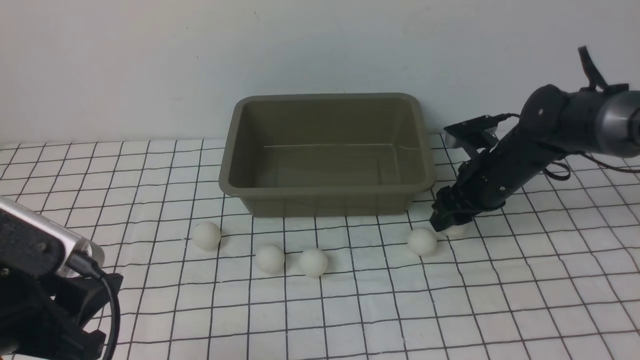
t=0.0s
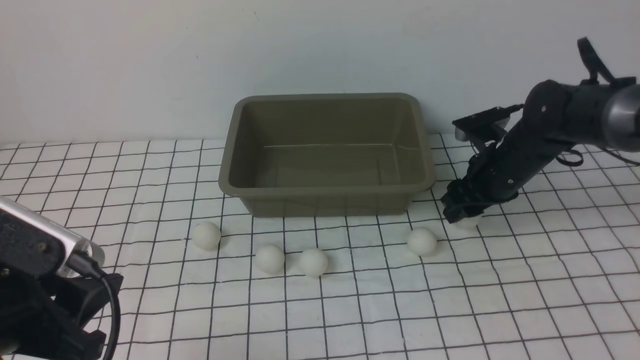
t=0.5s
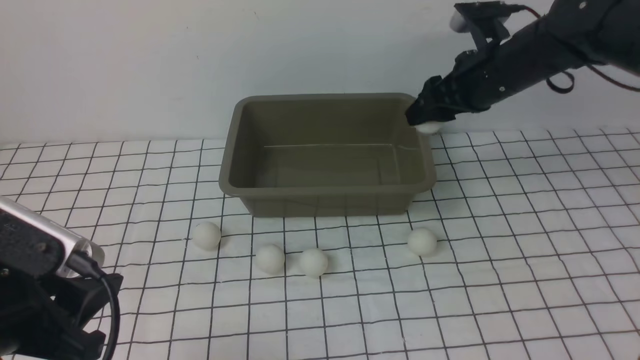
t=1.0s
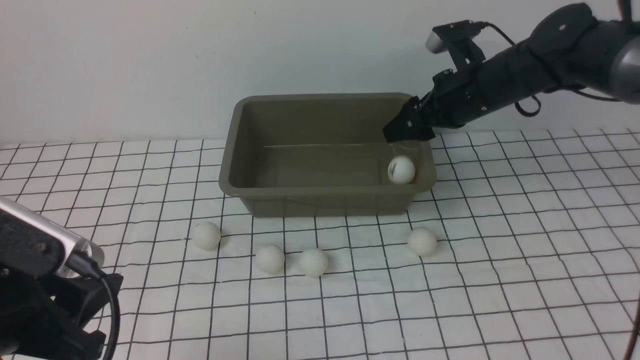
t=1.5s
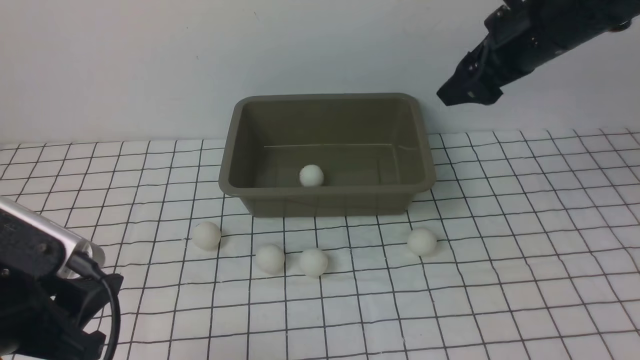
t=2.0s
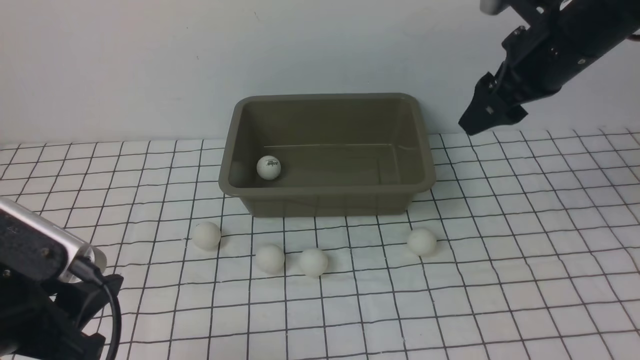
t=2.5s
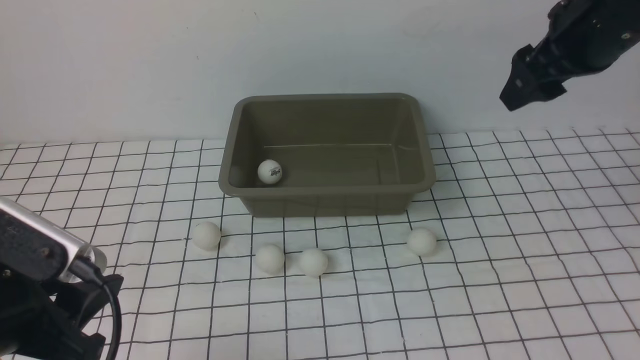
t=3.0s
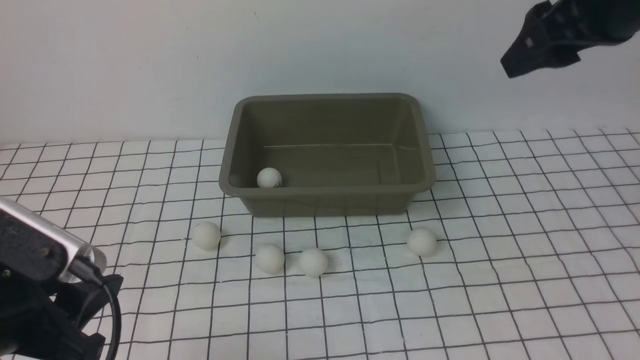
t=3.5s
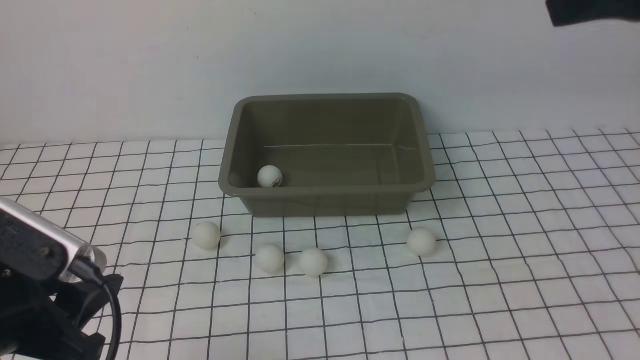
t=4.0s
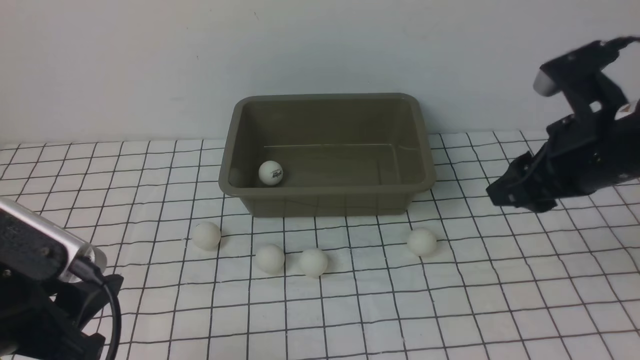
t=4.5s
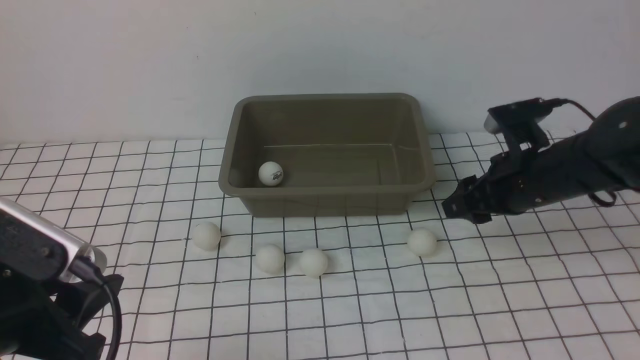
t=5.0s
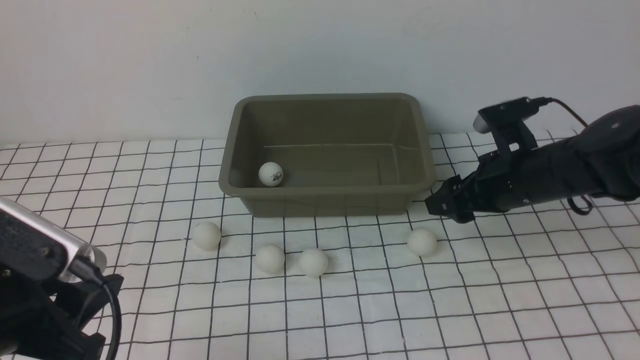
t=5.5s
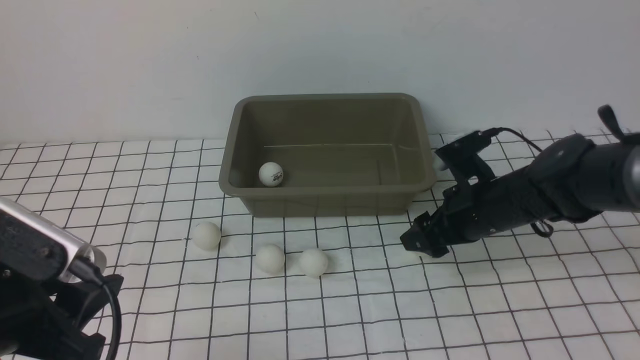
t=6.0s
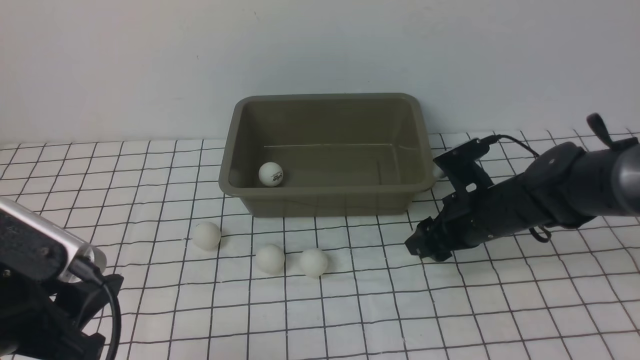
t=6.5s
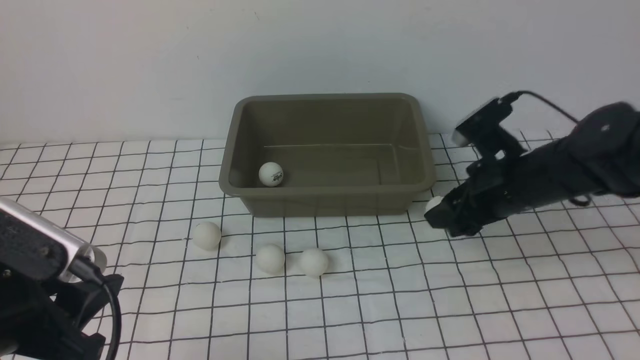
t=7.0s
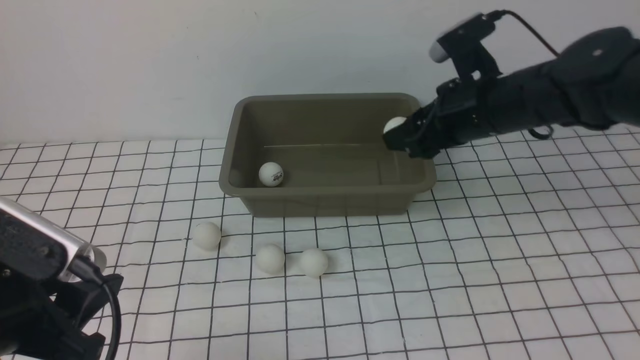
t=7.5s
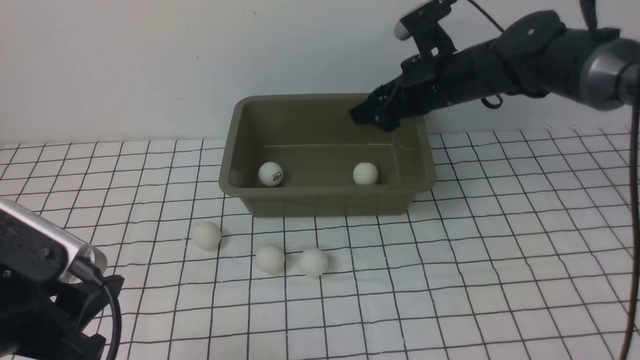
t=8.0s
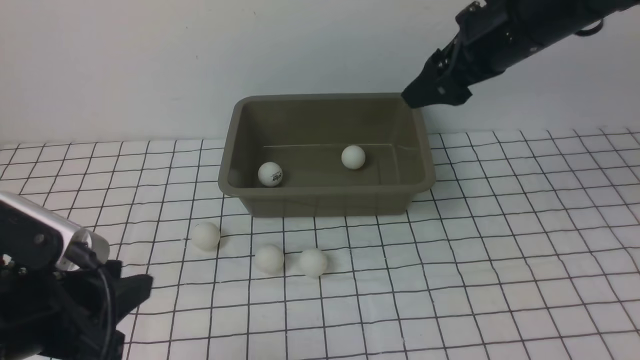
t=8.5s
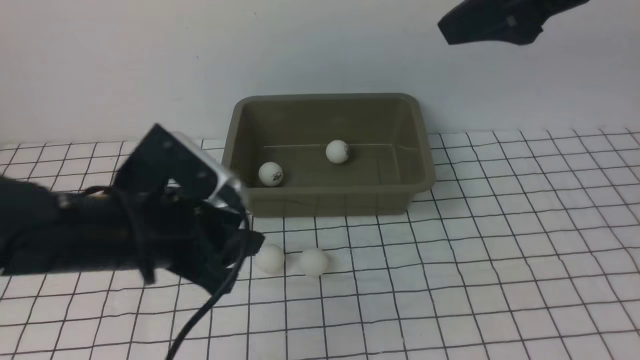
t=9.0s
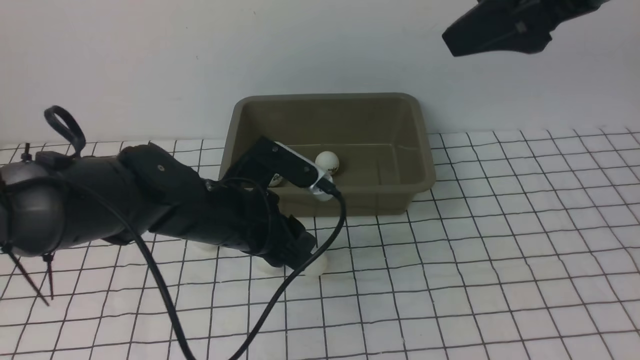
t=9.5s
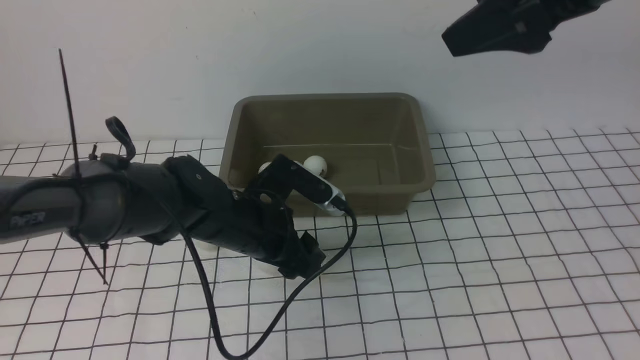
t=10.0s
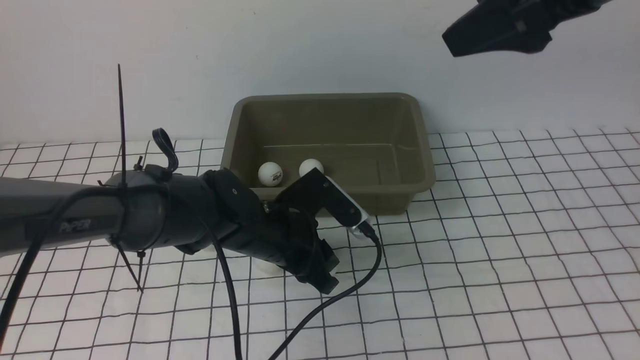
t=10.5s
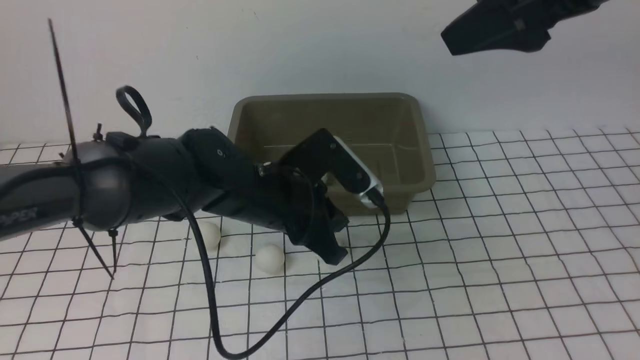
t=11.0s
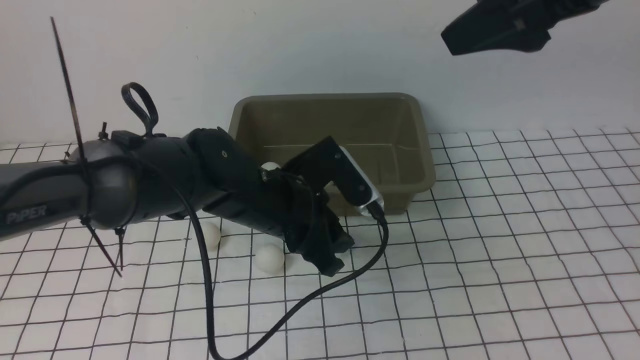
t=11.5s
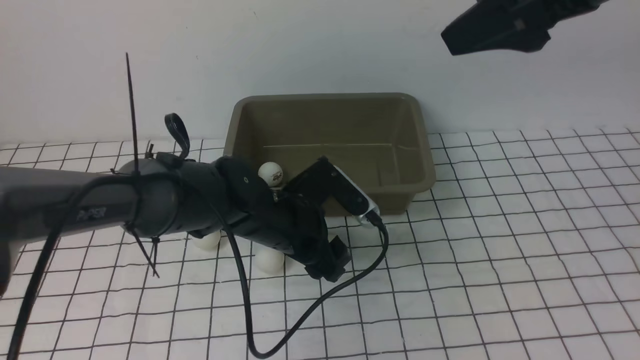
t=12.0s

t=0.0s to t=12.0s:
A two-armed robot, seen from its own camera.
Step, t=1.0s to t=1.5s: use the right arm to put the table tennis ball into the box.
Step, t=2.0s to t=7.0s: use the right arm to clamp the table tennis ball closest to it.
t=0.0s to t=2.0s: The right gripper goes about 20 cm upward.
t=2.0s to t=4.0s: The right gripper moves backward, roughly 10 cm, and moves some 10 cm upward and comes back.
t=4.0s to t=6.0s: The right gripper heads downward, covering some 20 cm.
t=6.0s to t=8.0s: The right gripper travels upward and forward by about 15 cm.
t=8.0s to t=10.0s: The left gripper is displaced forward, to the right and downward by some 25 cm. Meanwhile the right gripper is displaced upward and backward by some 25 cm.
t=10.0s to t=12.0s: The left gripper closes, then reopens.

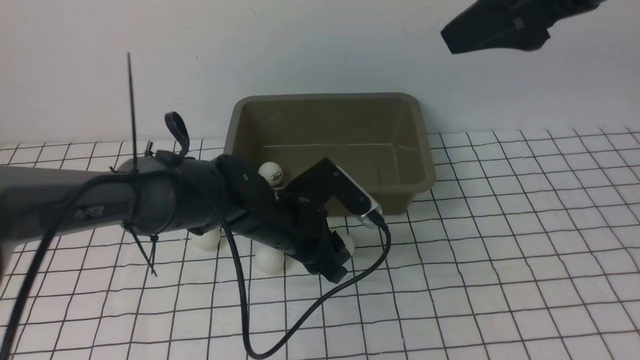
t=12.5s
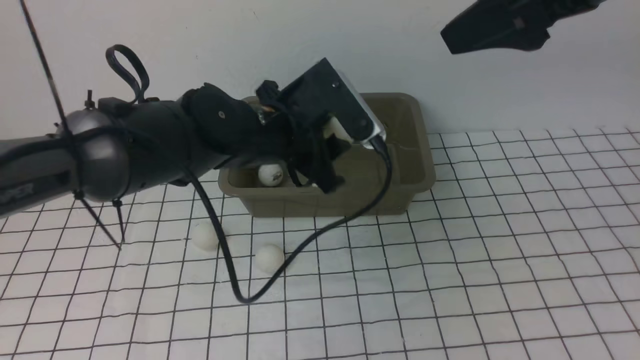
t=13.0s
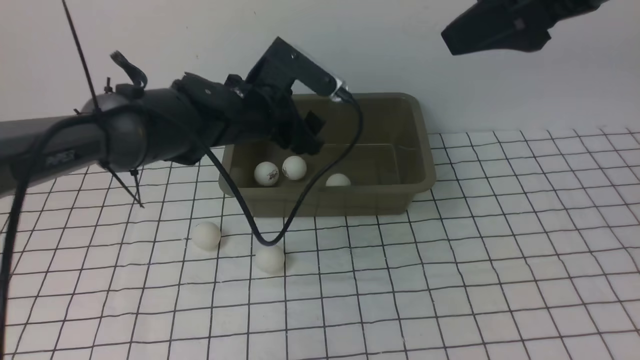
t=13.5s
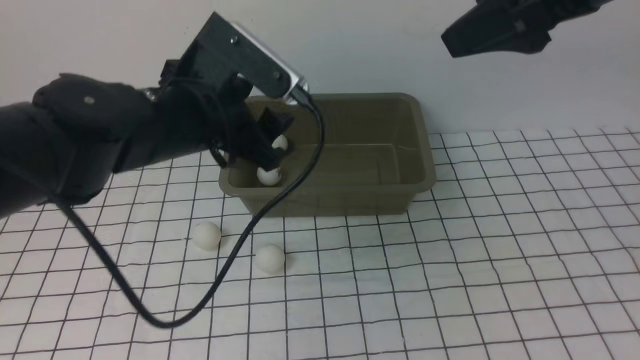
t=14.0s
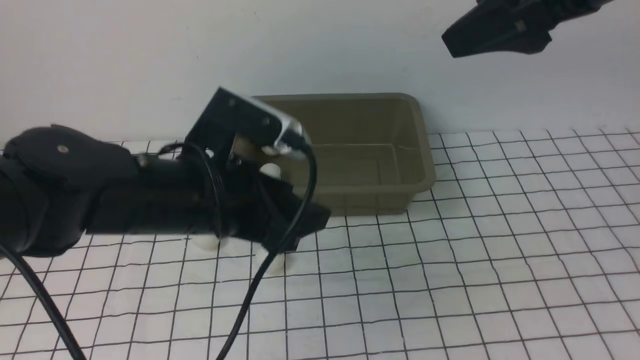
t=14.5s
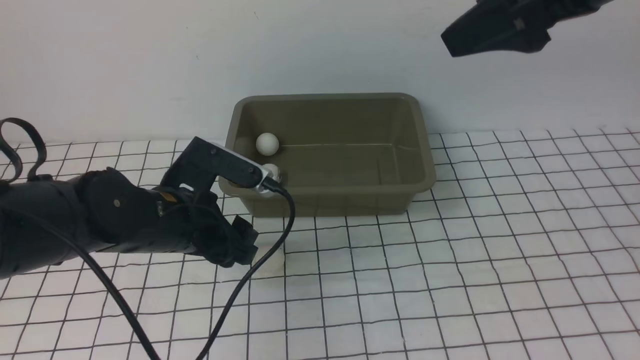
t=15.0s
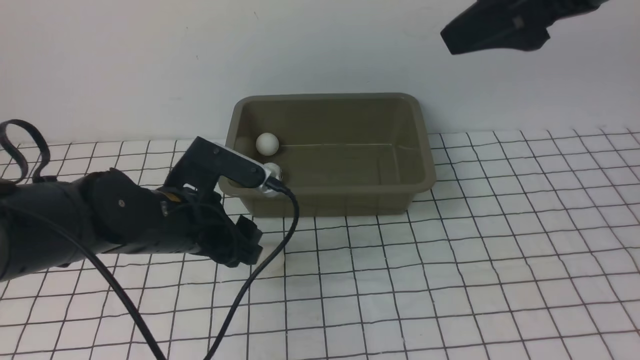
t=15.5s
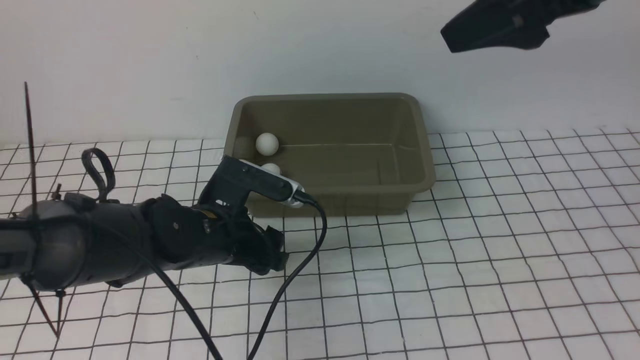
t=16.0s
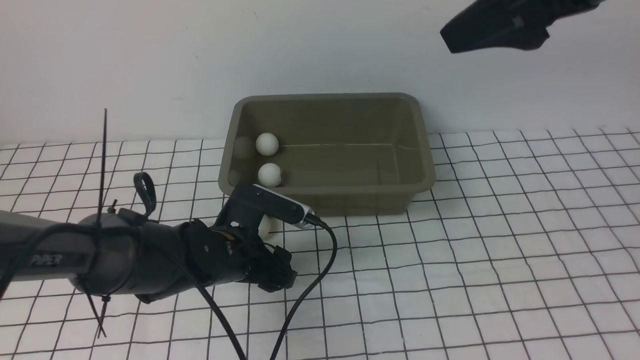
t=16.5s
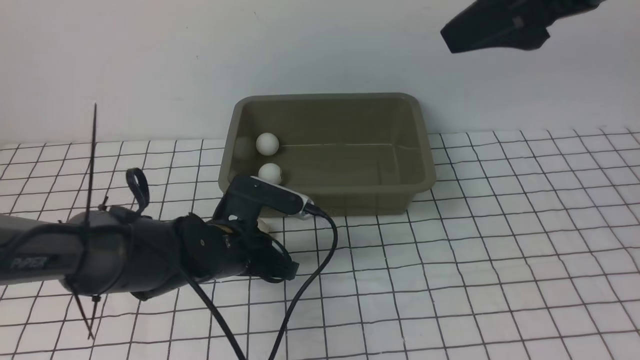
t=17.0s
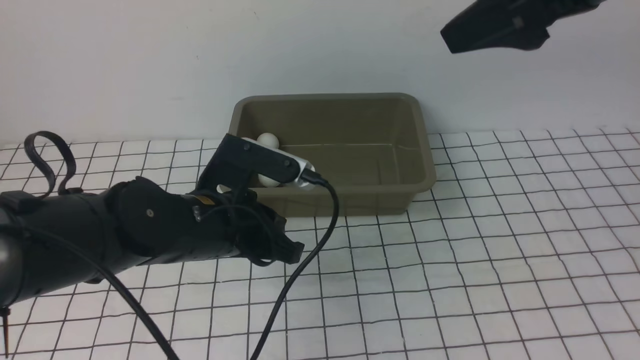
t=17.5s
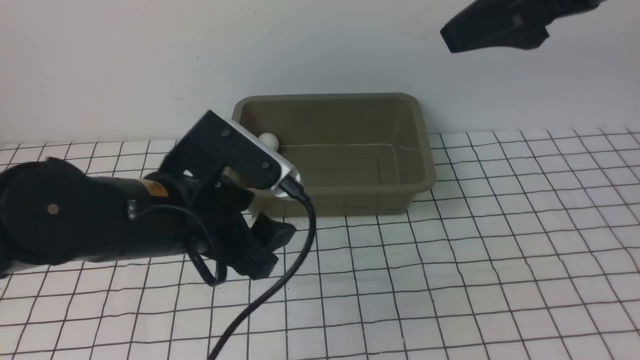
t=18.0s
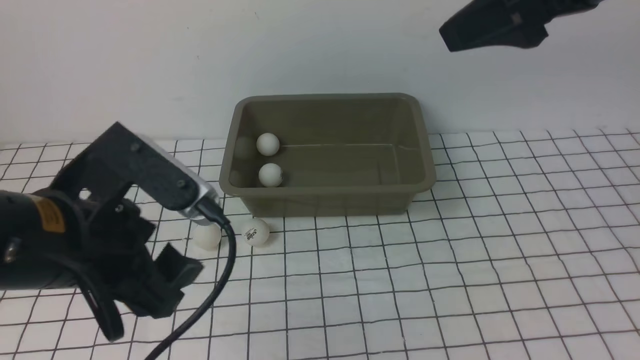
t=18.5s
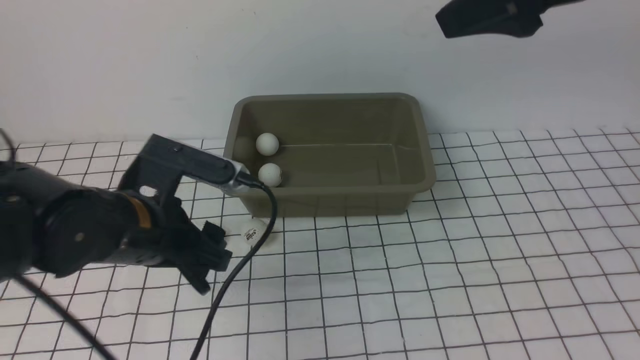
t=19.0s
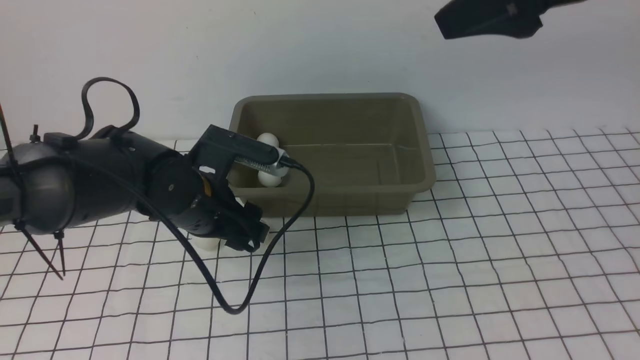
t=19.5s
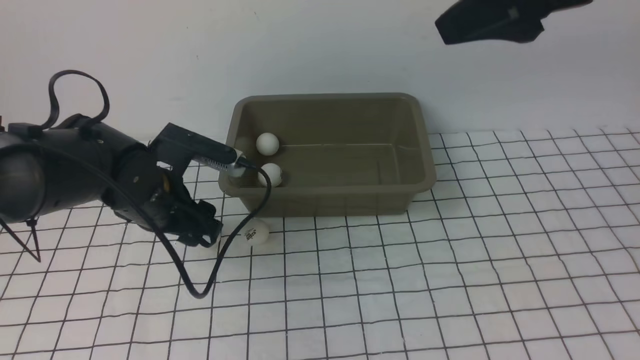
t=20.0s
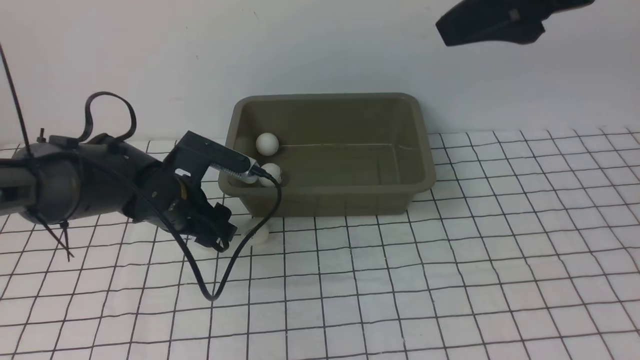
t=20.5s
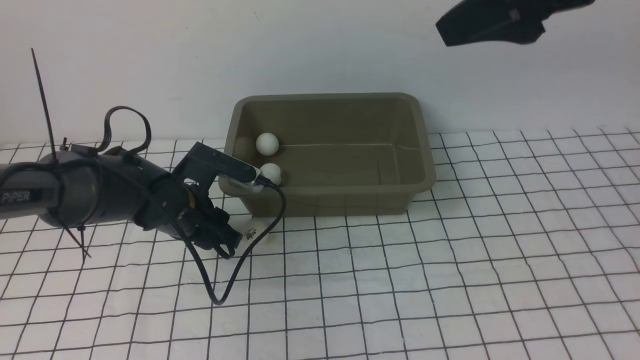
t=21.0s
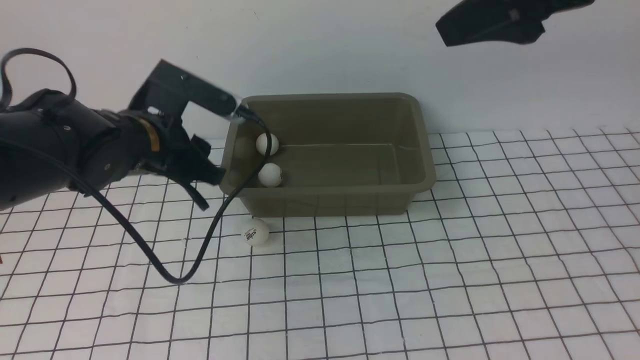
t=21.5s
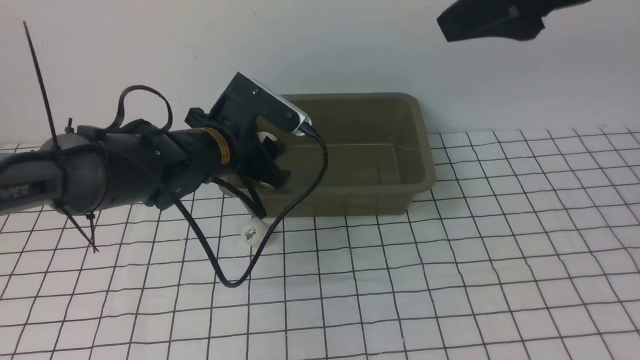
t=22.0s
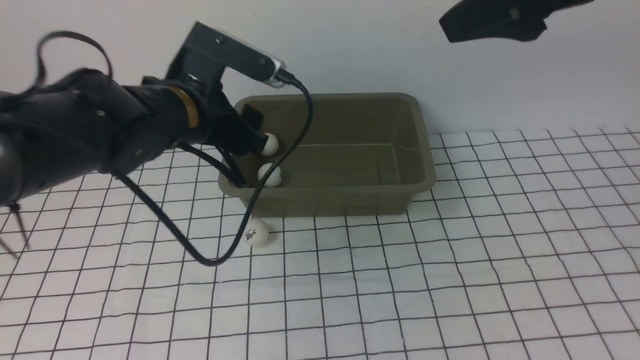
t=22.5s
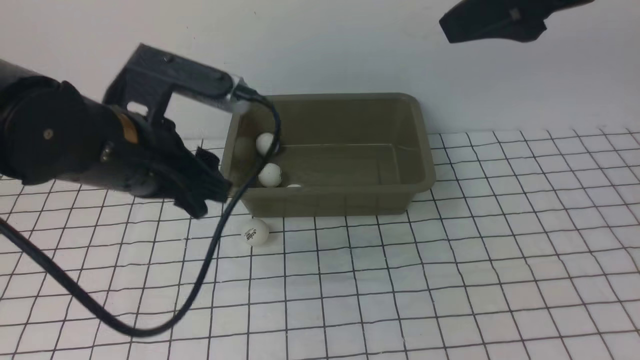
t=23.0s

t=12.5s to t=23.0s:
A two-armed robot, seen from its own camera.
Step, t=13.0s to t=13.5s: use the left arm to put the table tennis ball into the box.
Step, t=14.0s to t=21.0s: use the left arm to clamp the table tennis ball closest to it.
Step, t=21.5s to t=22.0s: use the left arm to put the table tennis ball into the box.
t=12.5s to t=14.5s: The left gripper shifts some 10 cm to the left, backward and upward.
t=14.5s to t=16.5s: The left gripper shifts approximately 15 cm downward.
t=16.5s to t=19.0s: The left gripper is displaced upward by roughly 10 cm, and closes, then opens again.
t=19.0s to t=21.0s: The left gripper moves approximately 5 cm, and closes.
t=21.0s to t=23.0s: The left gripper travels backward by some 5 cm.
